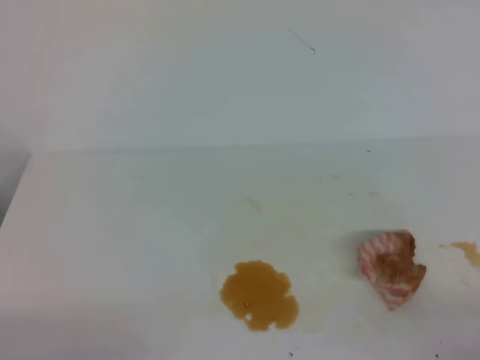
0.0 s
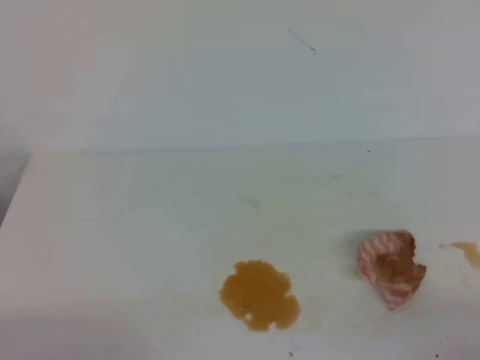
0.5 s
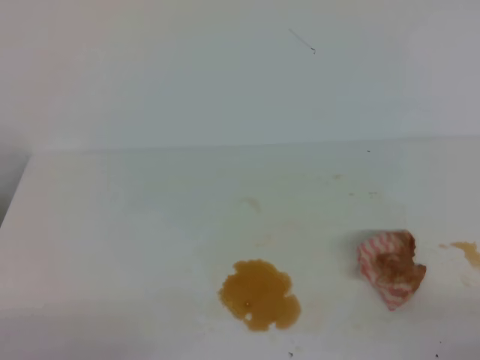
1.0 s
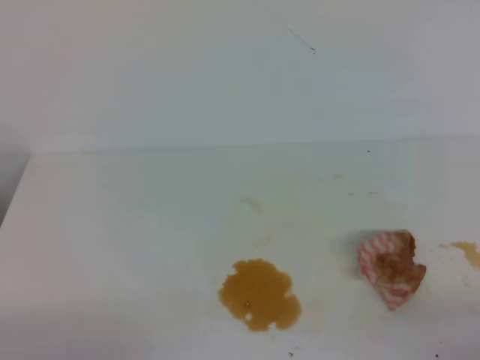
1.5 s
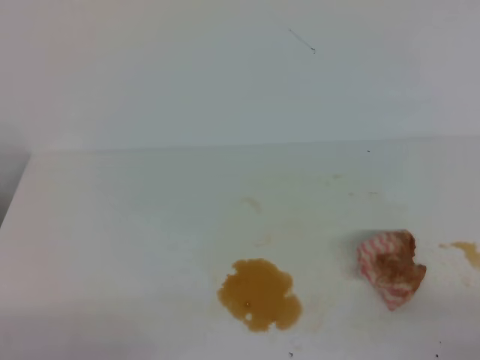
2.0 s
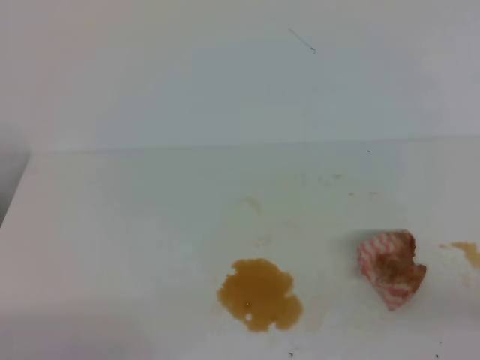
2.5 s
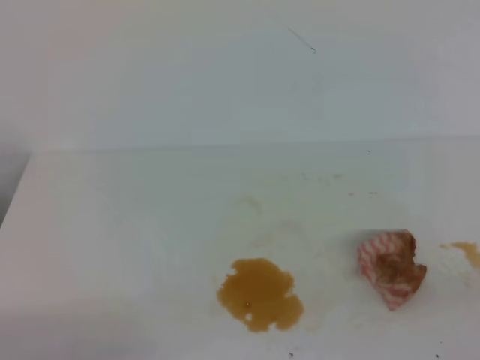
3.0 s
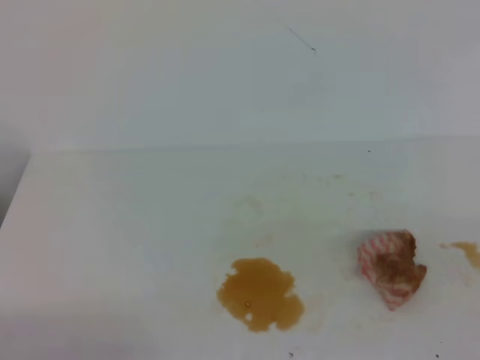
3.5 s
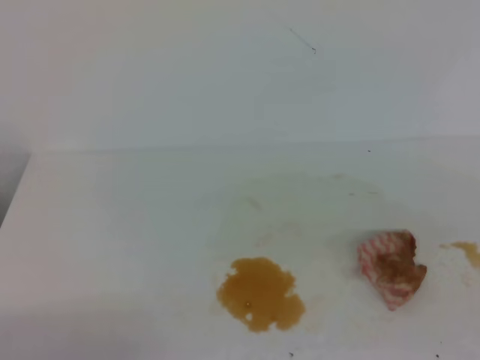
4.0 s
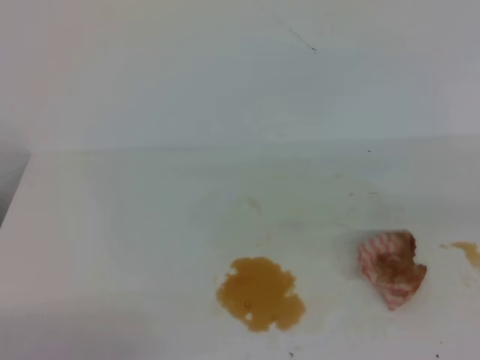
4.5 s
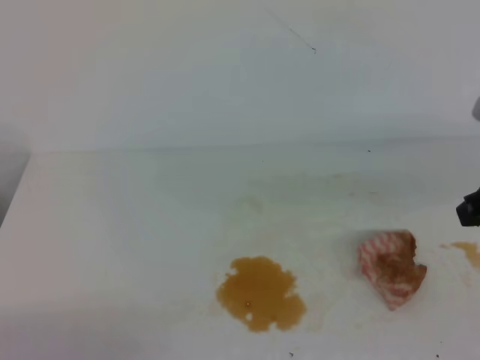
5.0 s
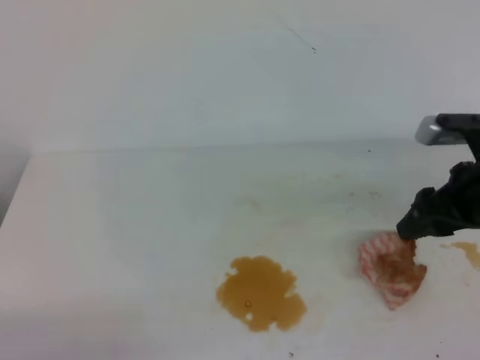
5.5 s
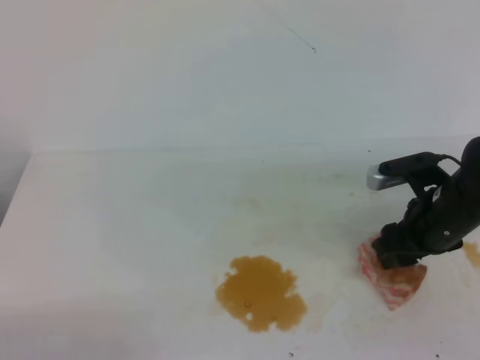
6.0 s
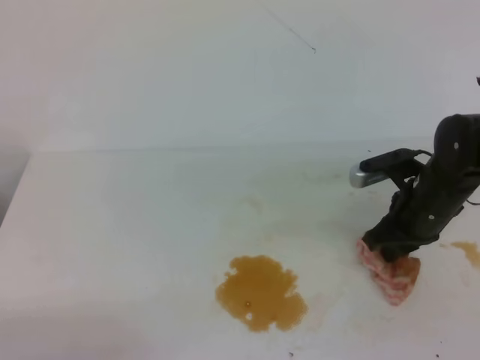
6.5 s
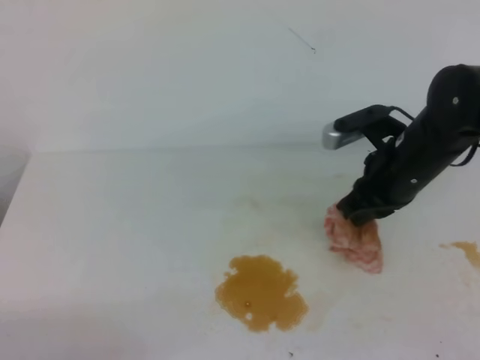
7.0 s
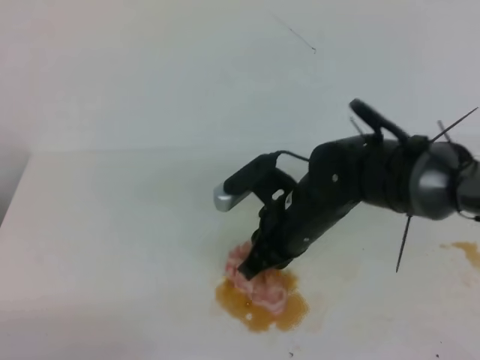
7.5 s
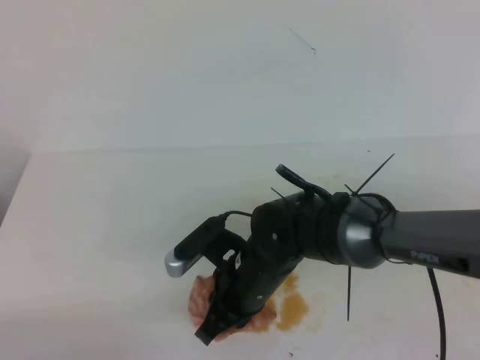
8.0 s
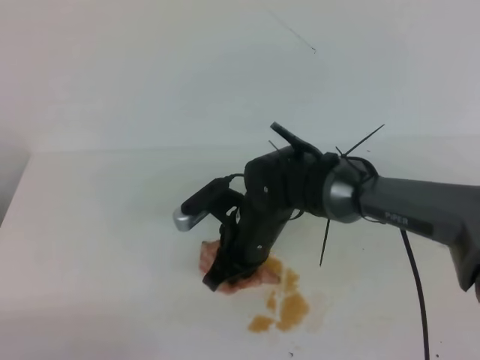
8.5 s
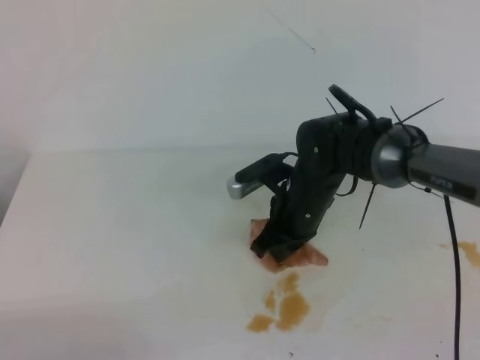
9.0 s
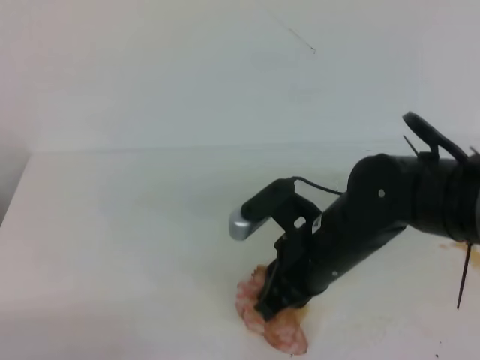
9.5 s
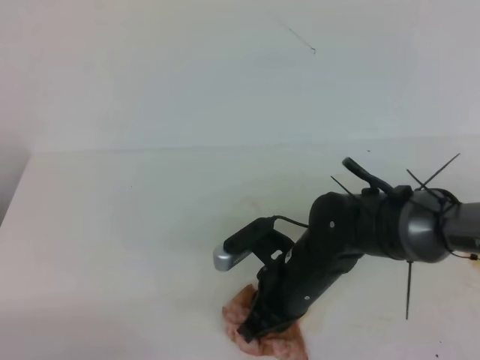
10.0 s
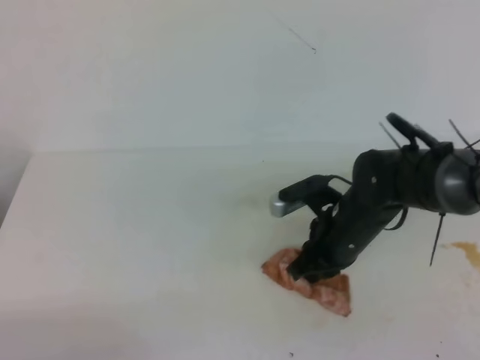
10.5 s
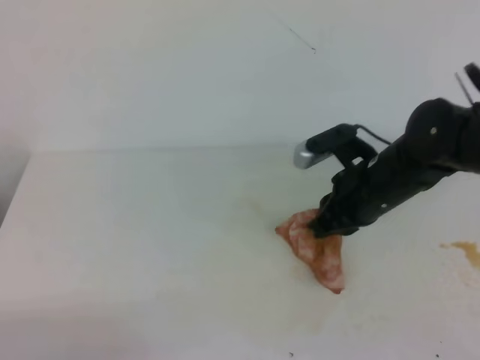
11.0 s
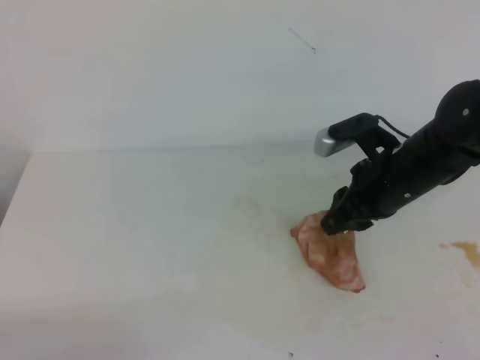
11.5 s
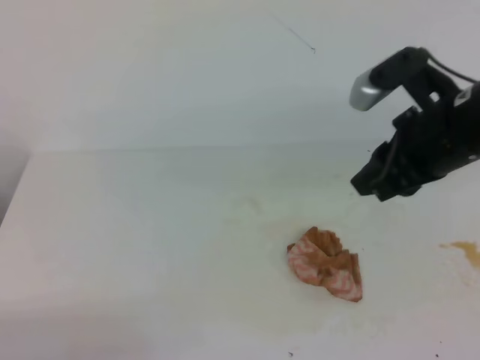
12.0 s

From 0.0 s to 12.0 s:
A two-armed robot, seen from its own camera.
From 0.0 s to 2.0 s: Both grippers stay about where they are.
From 4.0 s to 6.0 s: The right gripper heads forward and downward, covering some 30 cm, and opens up.
From 6.0 s to 8.0 s: The right gripper moves to the left, about 20 cm, and closes up.
From 8.0 s to 10.0 s: The right gripper shifts approximately 5 cm to the right, and reaches some 10 cm forward, then returns.
From 10.0 s to 12.0 s: The right gripper is displaced upward and to the right by approximately 20 cm, and opens up.

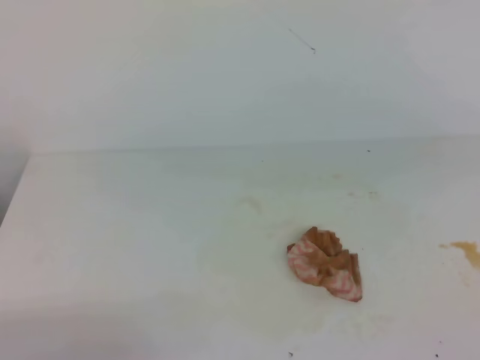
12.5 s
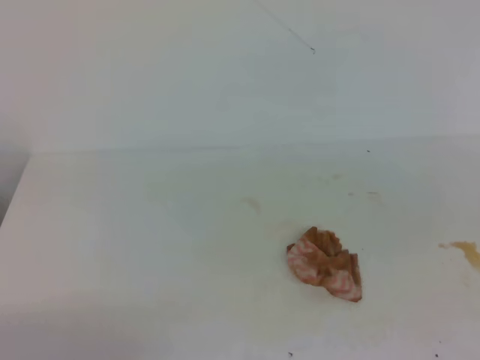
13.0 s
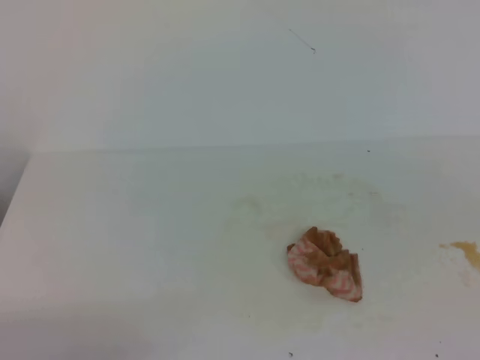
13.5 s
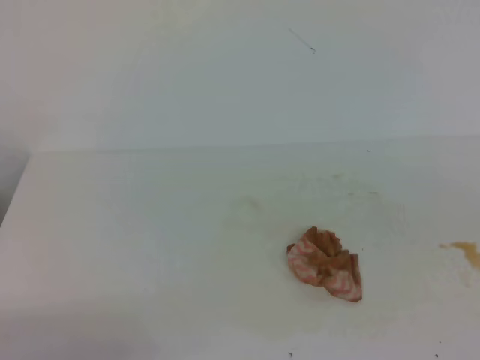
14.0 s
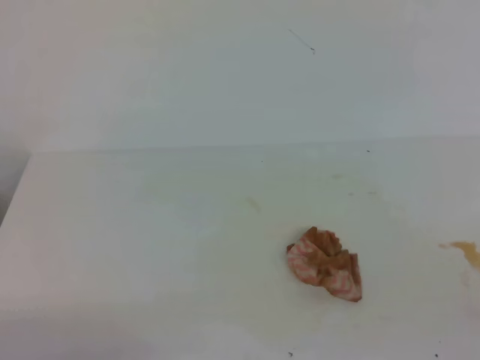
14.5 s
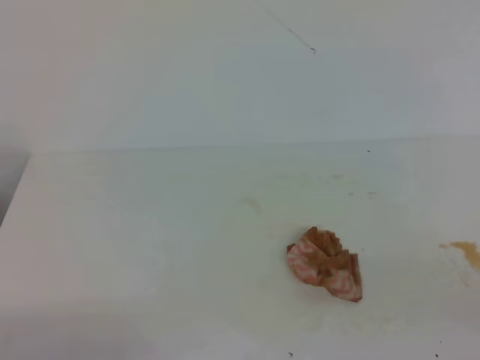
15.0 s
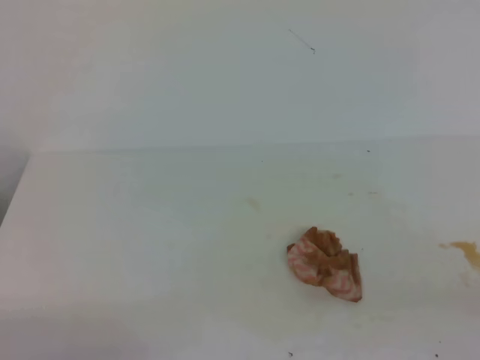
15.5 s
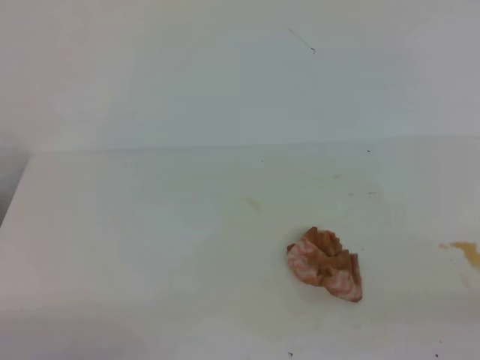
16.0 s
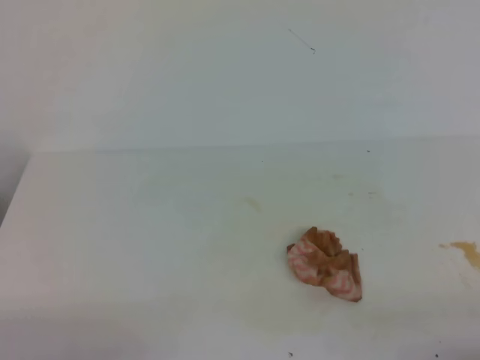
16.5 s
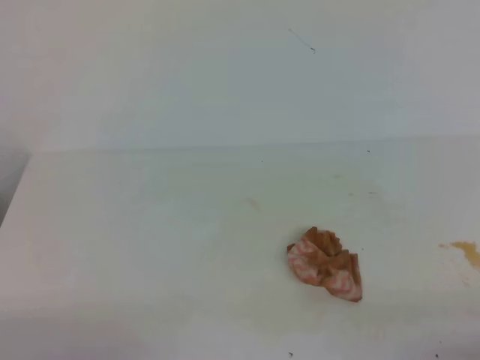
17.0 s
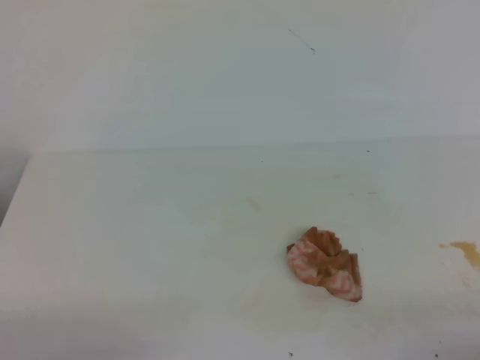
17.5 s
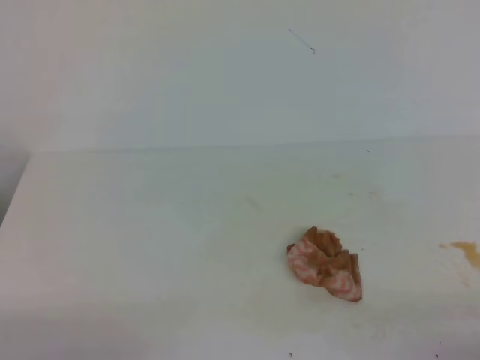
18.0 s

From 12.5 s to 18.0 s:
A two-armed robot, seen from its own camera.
From 12.5 s to 14.5 s: The right gripper is displaced backward, downward and to the right by some 20 cm.

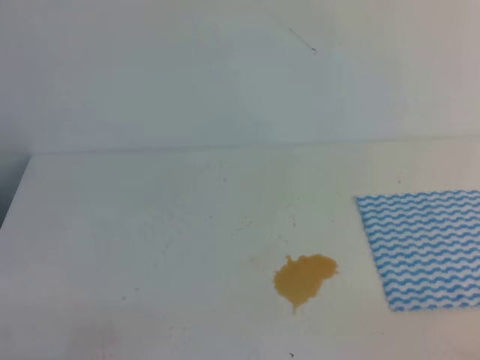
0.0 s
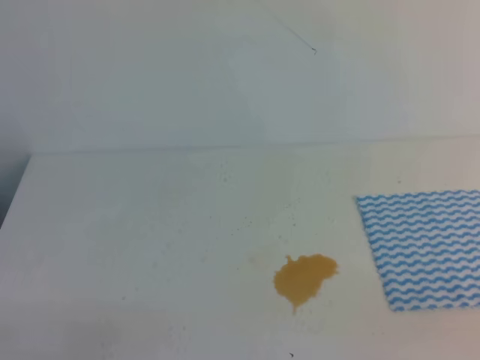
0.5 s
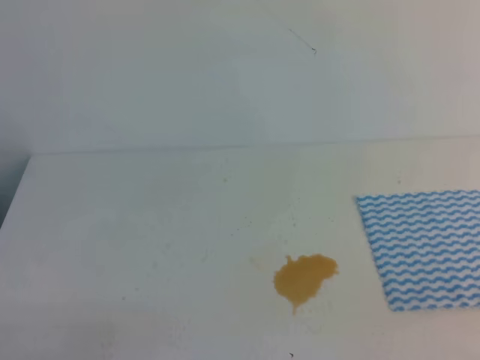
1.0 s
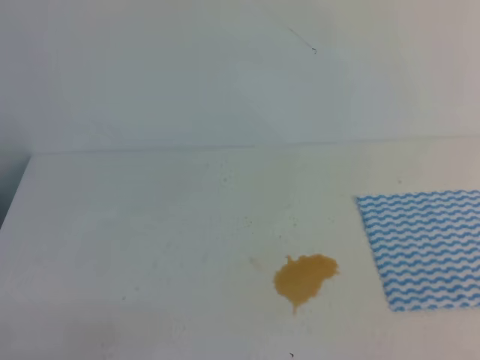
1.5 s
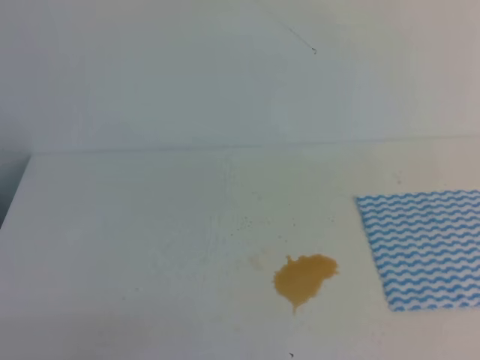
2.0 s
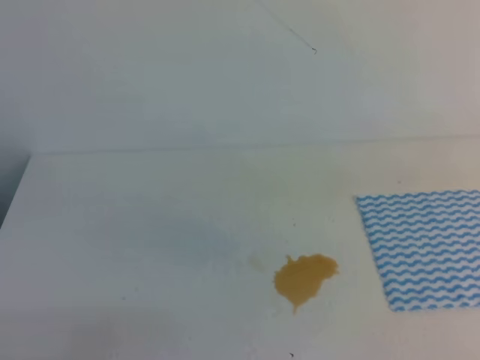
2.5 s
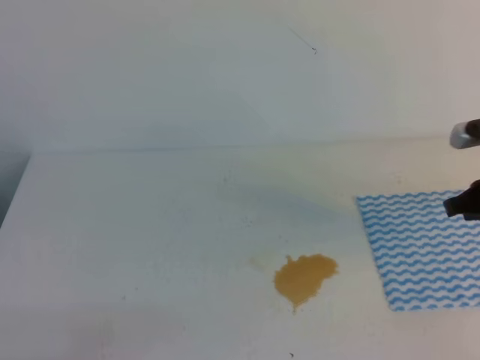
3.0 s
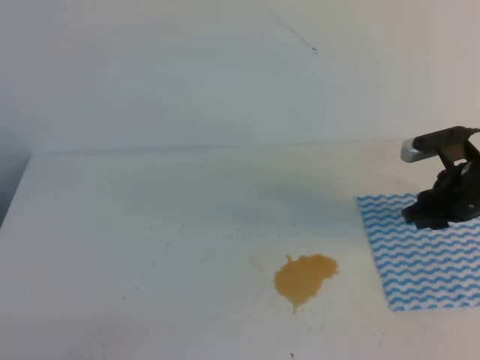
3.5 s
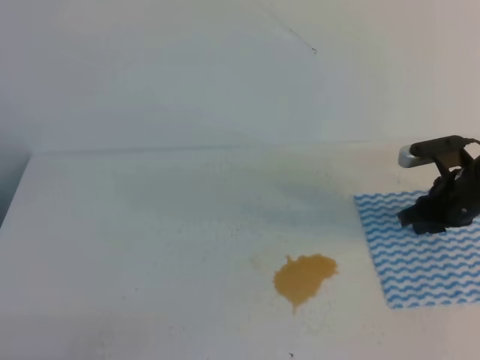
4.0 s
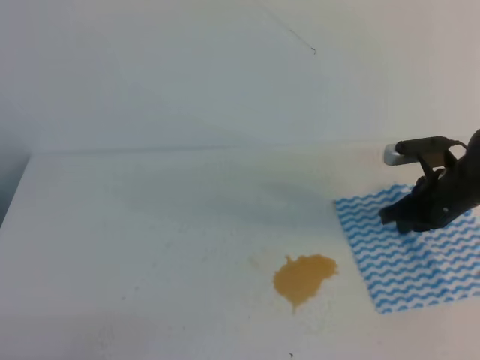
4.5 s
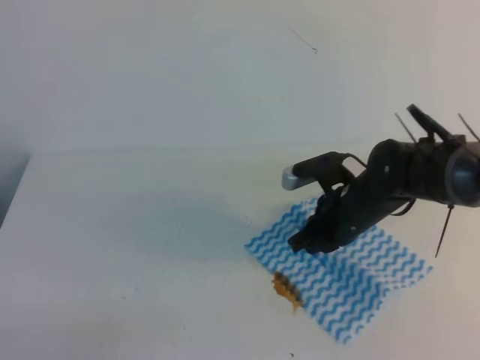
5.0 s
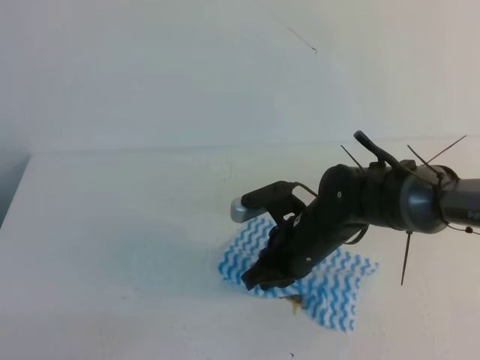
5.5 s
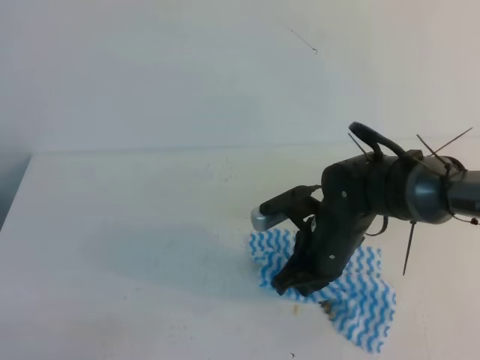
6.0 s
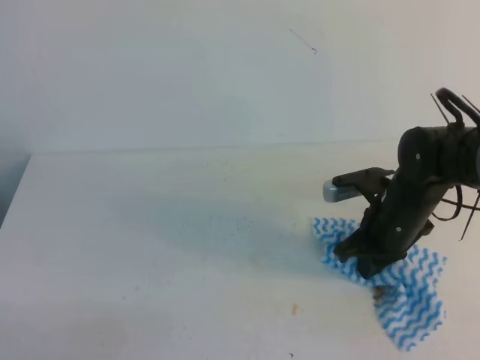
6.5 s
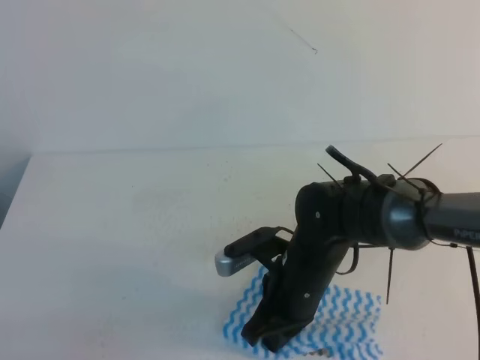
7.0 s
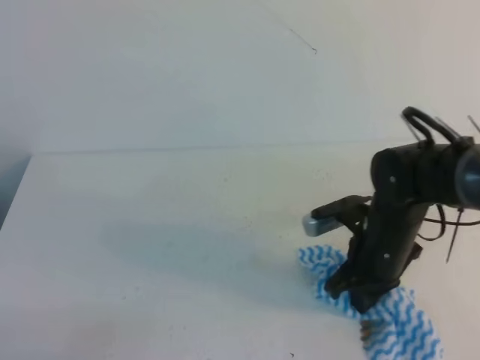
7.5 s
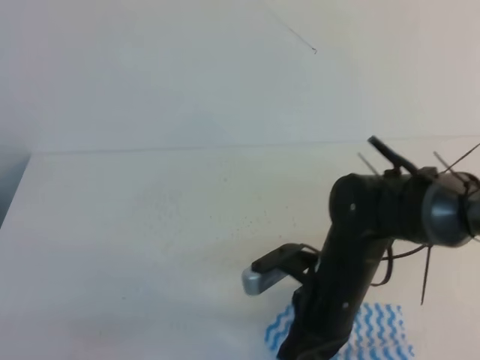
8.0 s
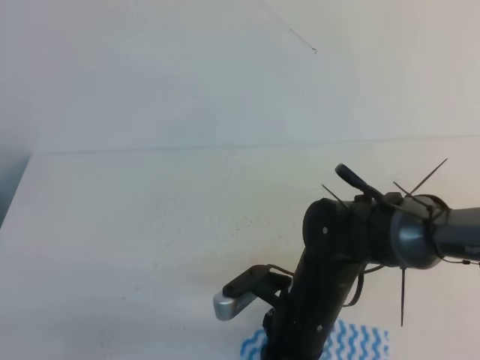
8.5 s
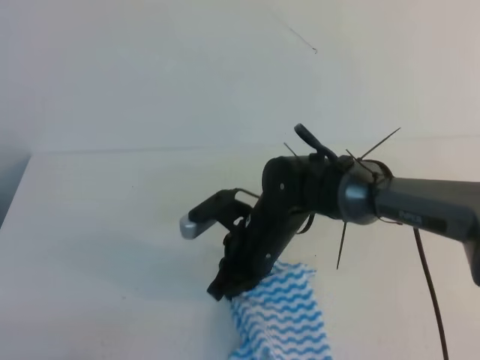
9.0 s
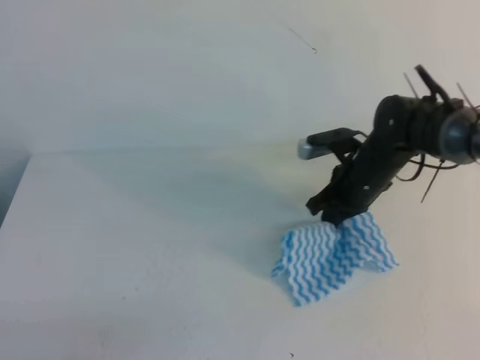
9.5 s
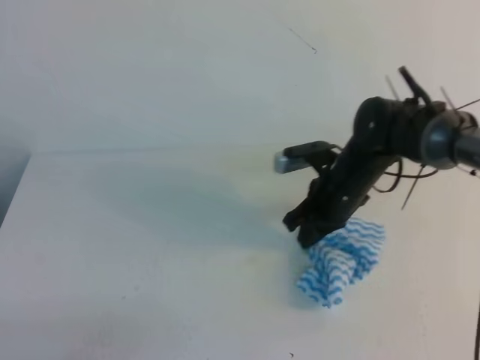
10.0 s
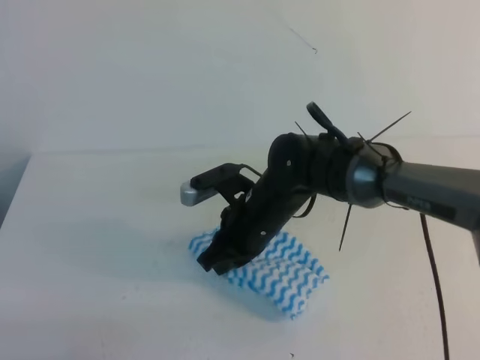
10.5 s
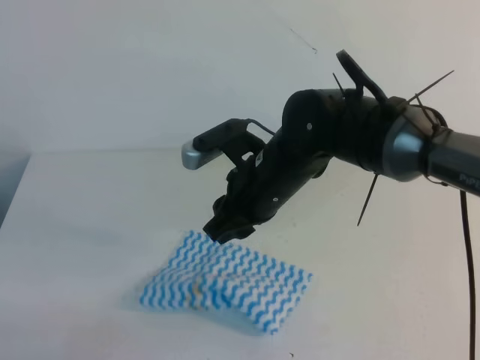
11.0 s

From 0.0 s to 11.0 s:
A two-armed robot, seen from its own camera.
From 2.0 s to 3.5 s: The right gripper heads forward and downward, covering roughly 35 cm, and opens its fingers.
From 3.5 s to 5.5 s: The right gripper is displaced to the left by approximately 20 cm, and closes up.
From 5.5 s to 7.5 s: The right gripper swings left and right, some 10 cm each way, with 2 reversals.
From 7.5 s to 9.0 s: The right gripper moves to the left, about 10 cm.
From 9.0 s to 11.0 s: The right gripper travels upward by about 10 cm, reaches roughly 10 cm to the right, then returns, and opens.
